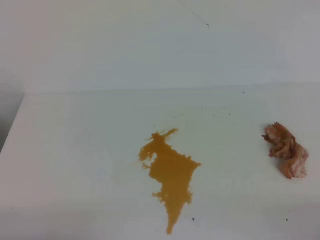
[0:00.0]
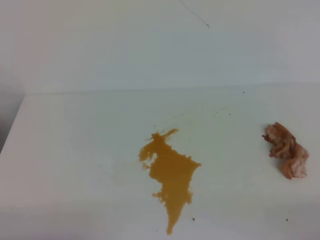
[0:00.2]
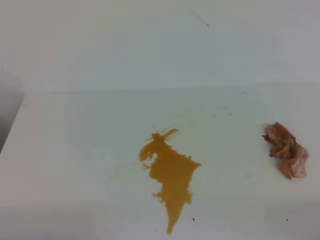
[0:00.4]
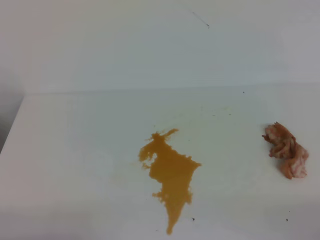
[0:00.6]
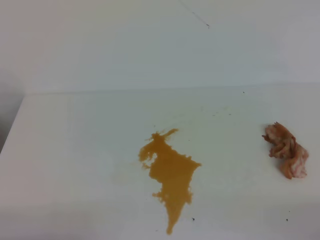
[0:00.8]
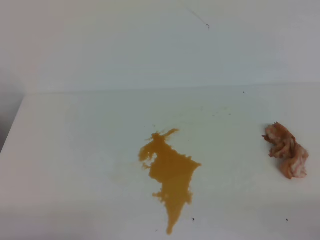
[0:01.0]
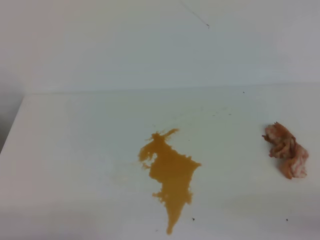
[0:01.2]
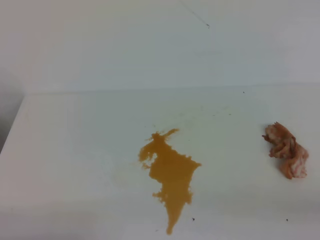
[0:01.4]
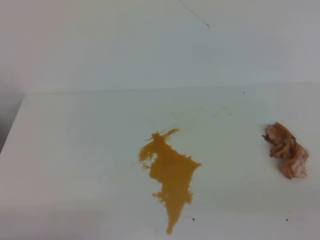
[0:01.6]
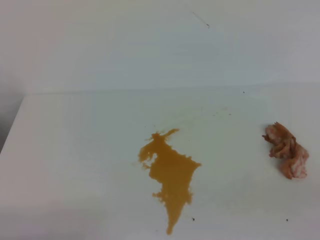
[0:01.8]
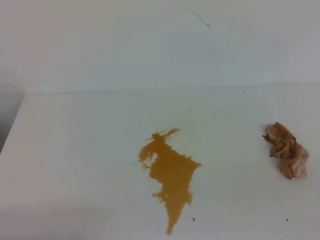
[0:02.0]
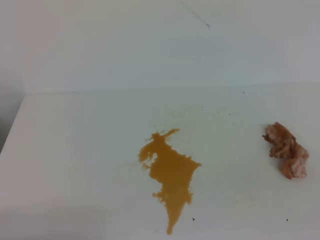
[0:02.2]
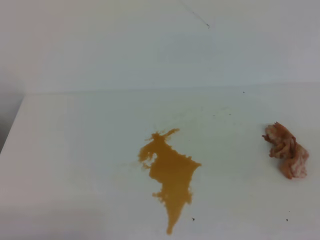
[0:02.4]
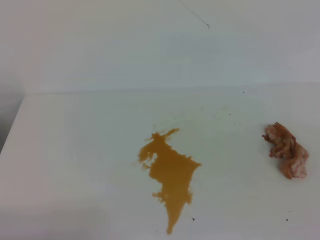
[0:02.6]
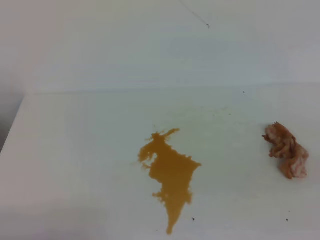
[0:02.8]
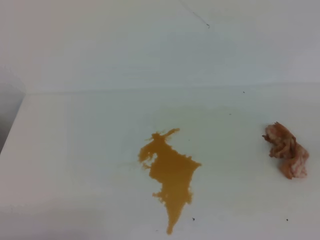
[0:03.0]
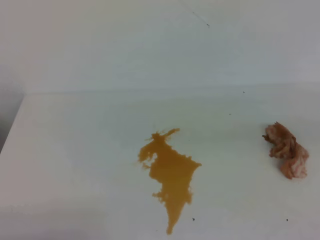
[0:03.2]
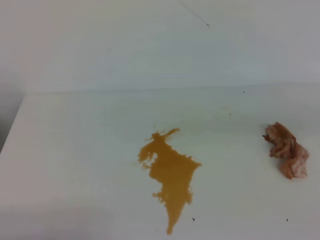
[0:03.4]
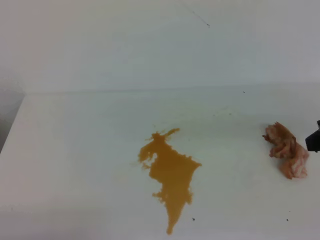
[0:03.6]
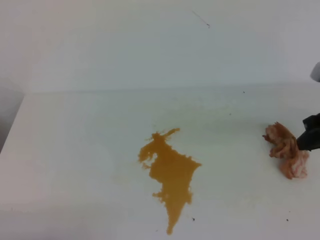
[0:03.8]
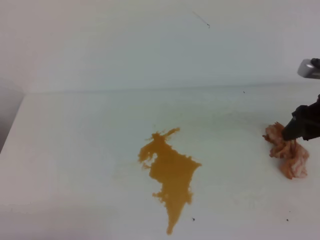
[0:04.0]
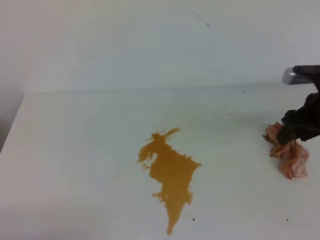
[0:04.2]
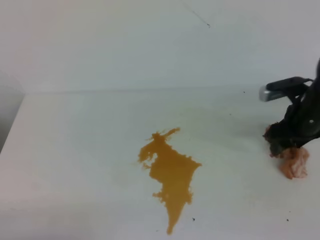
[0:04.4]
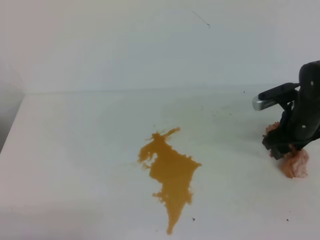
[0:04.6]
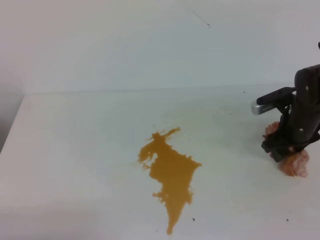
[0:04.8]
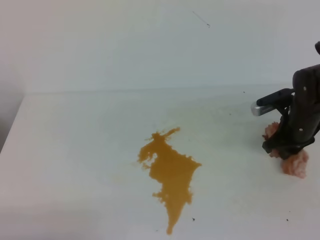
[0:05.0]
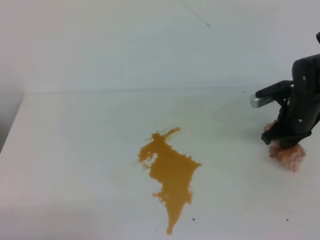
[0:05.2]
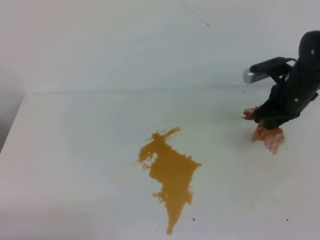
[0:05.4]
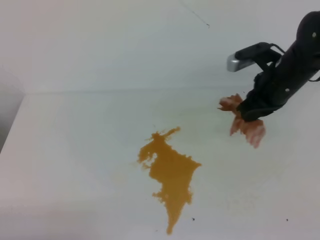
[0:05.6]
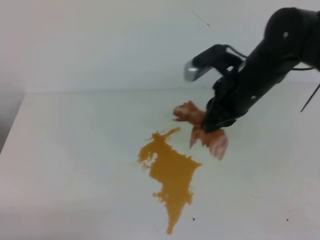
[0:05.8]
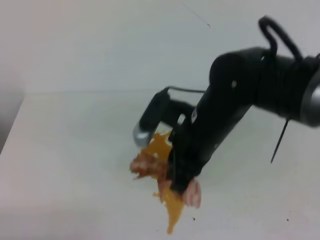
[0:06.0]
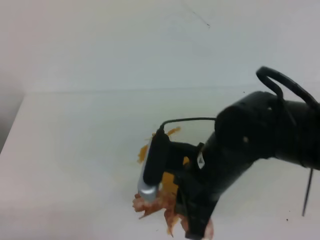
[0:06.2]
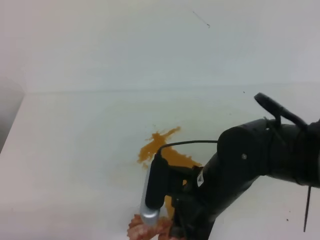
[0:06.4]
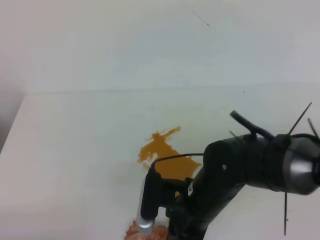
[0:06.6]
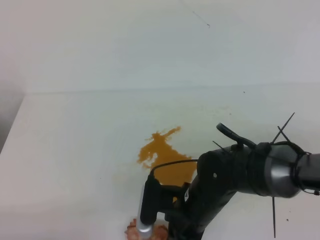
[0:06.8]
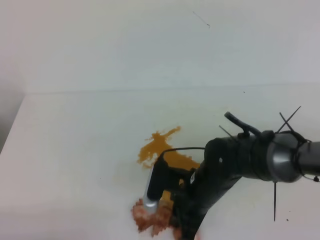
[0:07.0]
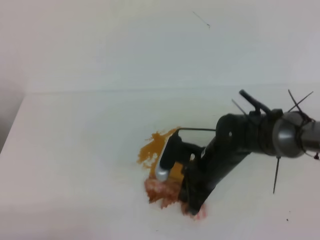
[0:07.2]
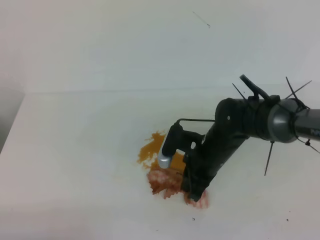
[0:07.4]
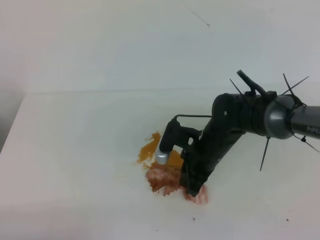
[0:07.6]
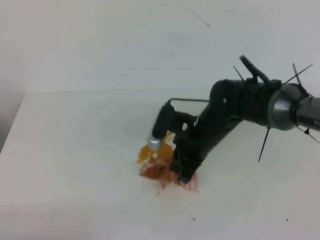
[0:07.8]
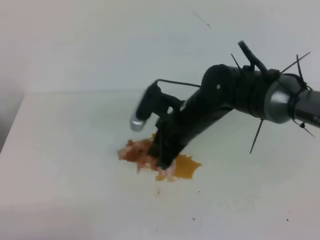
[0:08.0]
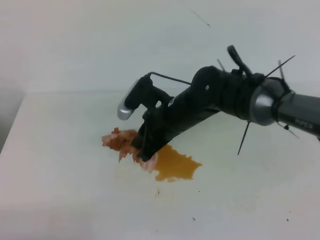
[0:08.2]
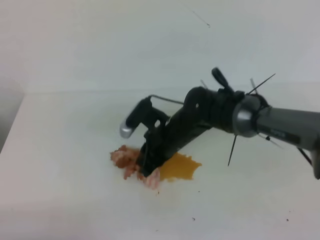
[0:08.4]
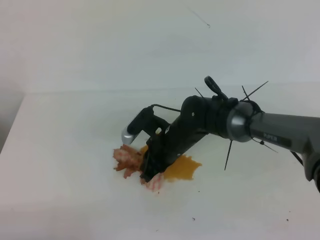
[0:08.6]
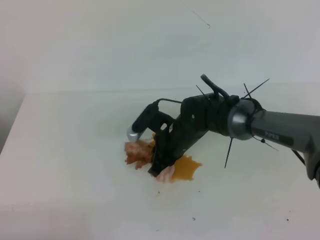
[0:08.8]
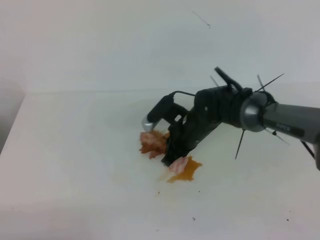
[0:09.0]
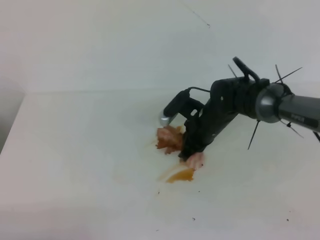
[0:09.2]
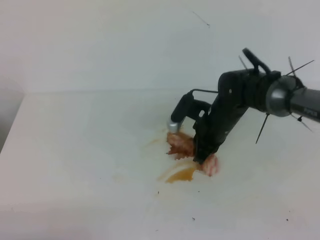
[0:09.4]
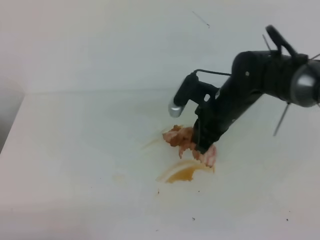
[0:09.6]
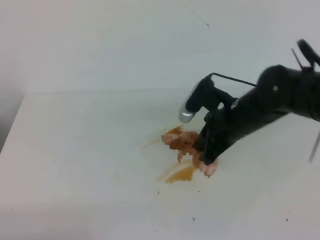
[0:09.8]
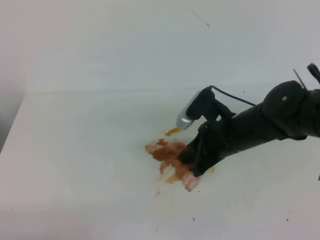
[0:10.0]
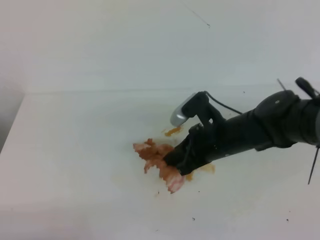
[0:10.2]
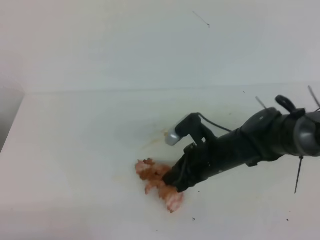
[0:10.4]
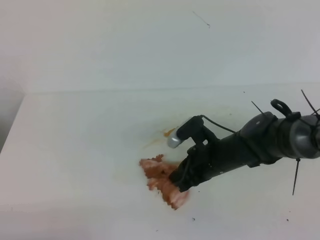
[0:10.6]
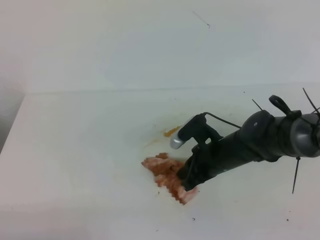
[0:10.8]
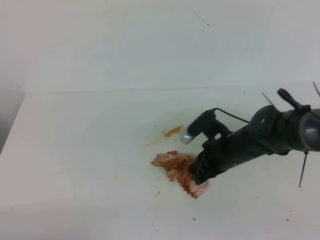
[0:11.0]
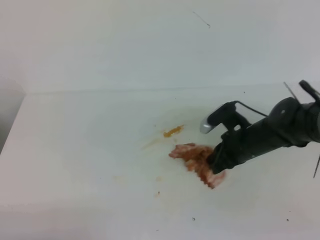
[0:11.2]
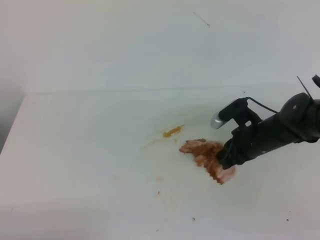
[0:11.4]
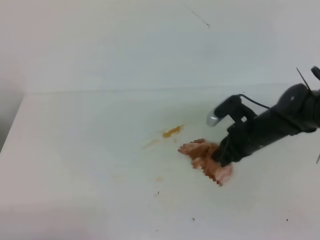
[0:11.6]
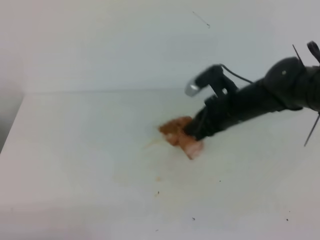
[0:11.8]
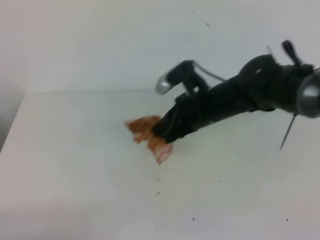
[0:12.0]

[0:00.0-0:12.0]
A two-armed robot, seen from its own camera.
0:03.0 to 0:04.4: The right gripper travels forward and downward by some 30 cm, and opens its fingers.
0:04.4 to 0:06.0: The right gripper travels to the left and backward by some 20 cm, and closes up.
0:06.0 to 0:07.6: The right gripper travels downward by roughly 10 cm.
0:07.6 to 0:09.0: The right gripper goes roughly 5 cm forward.
0:09.0 to 0:10.4: The right gripper goes approximately 5 cm backward.
0:10.4 to 0:12.0: The right gripper travels to the right and back again, approximately 10 cm each way.

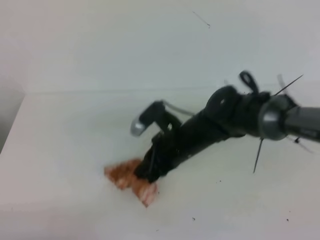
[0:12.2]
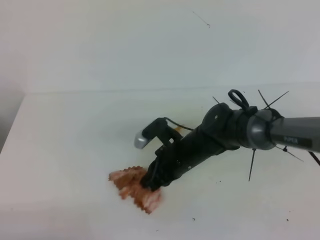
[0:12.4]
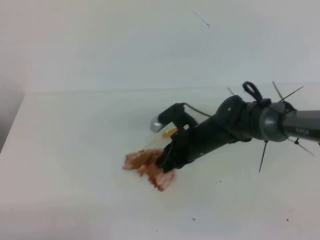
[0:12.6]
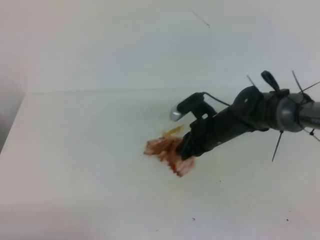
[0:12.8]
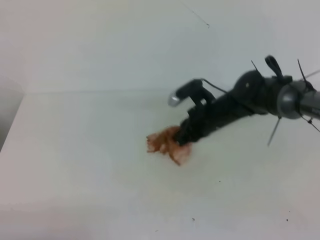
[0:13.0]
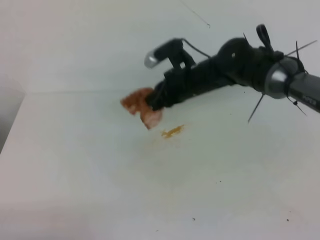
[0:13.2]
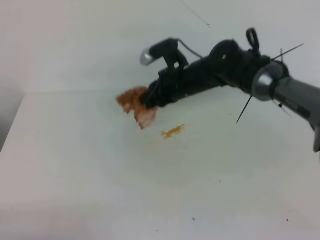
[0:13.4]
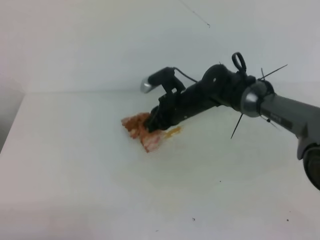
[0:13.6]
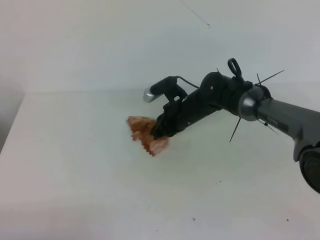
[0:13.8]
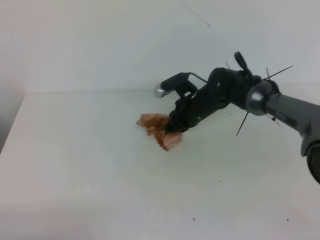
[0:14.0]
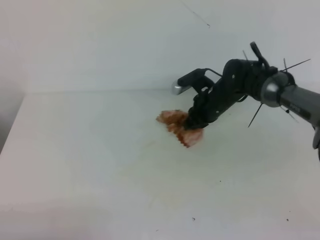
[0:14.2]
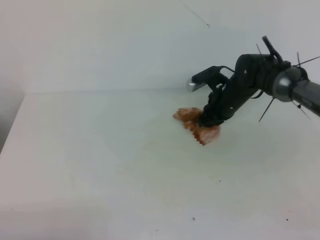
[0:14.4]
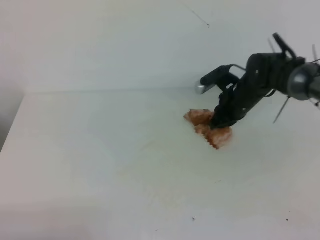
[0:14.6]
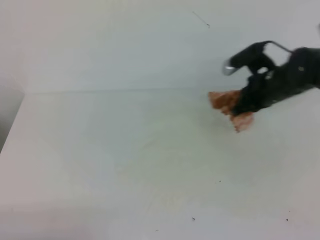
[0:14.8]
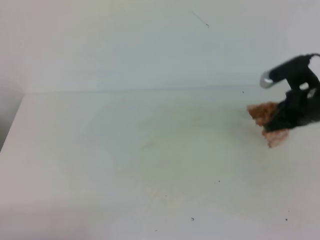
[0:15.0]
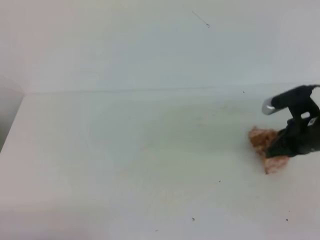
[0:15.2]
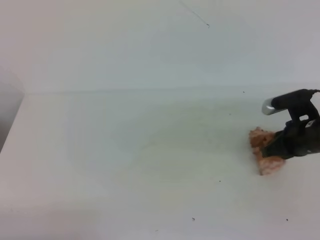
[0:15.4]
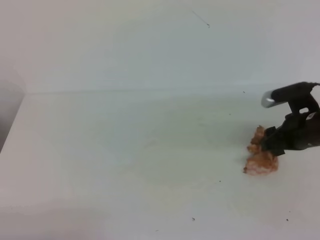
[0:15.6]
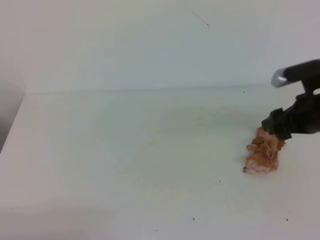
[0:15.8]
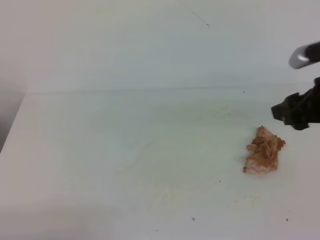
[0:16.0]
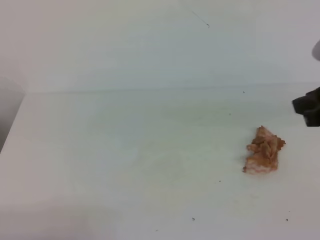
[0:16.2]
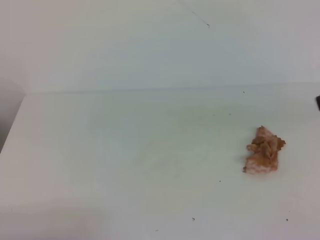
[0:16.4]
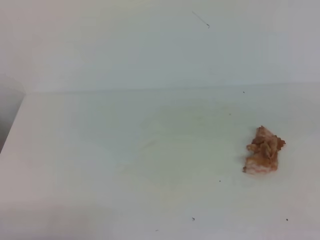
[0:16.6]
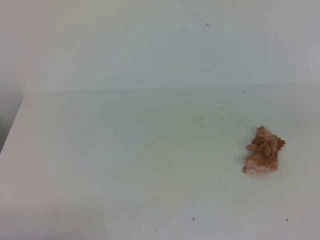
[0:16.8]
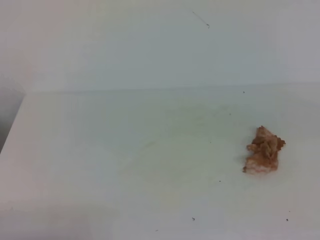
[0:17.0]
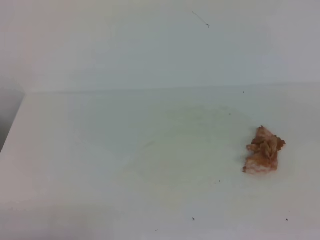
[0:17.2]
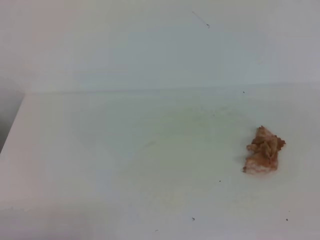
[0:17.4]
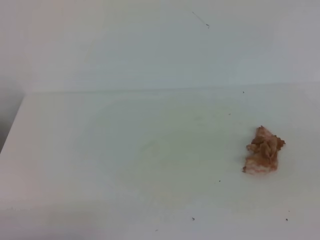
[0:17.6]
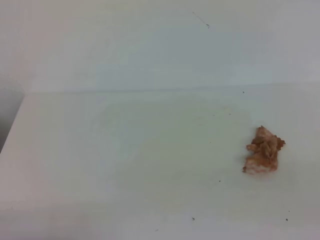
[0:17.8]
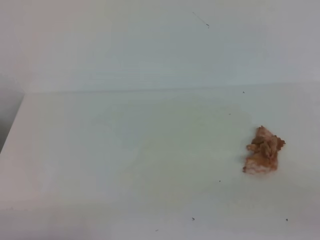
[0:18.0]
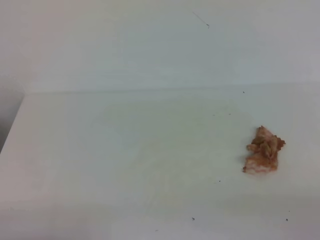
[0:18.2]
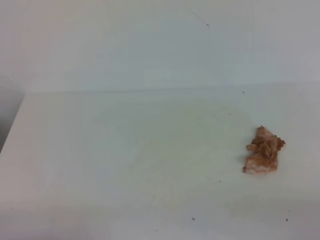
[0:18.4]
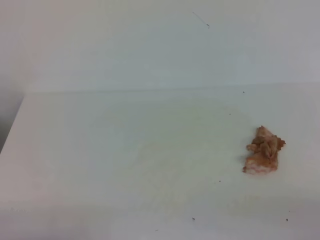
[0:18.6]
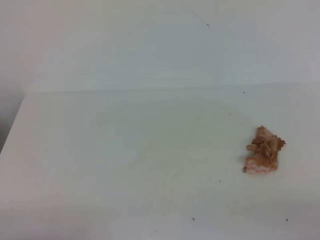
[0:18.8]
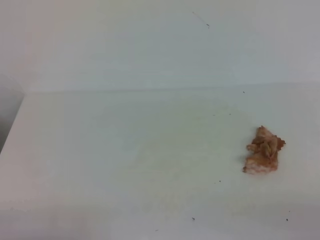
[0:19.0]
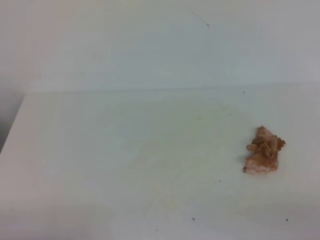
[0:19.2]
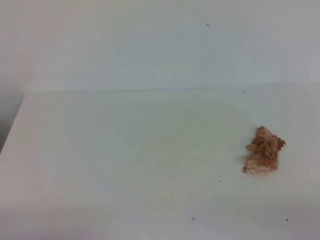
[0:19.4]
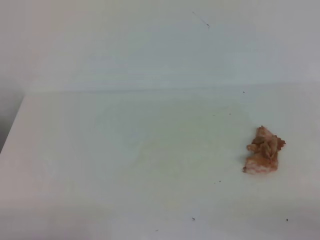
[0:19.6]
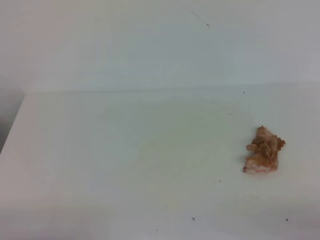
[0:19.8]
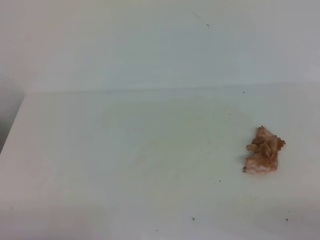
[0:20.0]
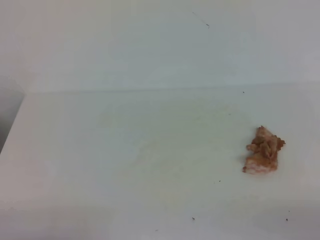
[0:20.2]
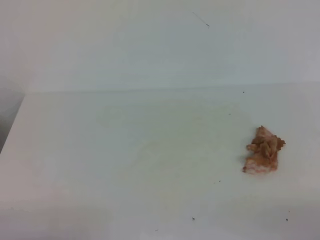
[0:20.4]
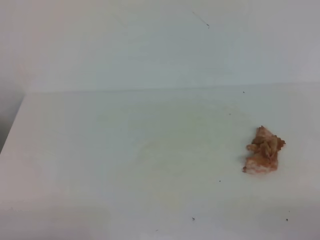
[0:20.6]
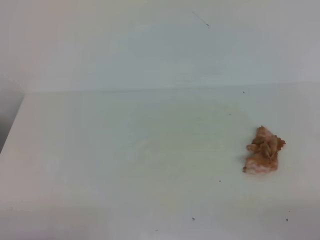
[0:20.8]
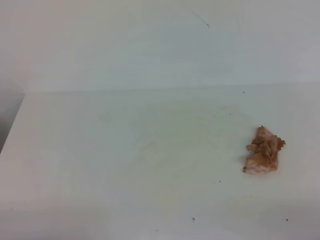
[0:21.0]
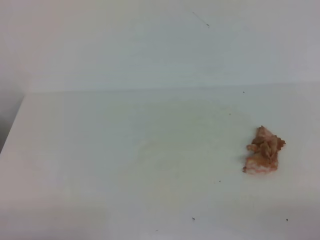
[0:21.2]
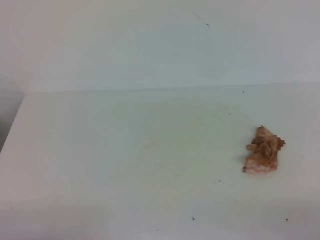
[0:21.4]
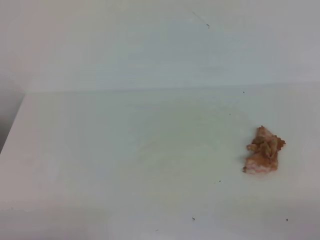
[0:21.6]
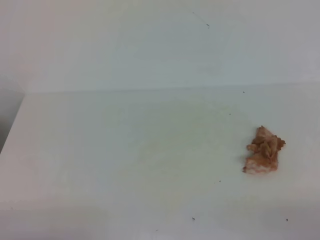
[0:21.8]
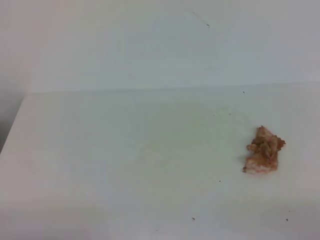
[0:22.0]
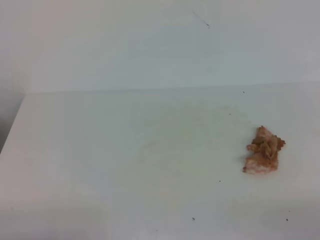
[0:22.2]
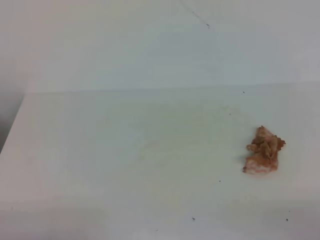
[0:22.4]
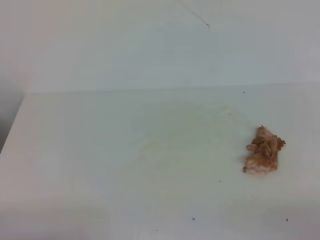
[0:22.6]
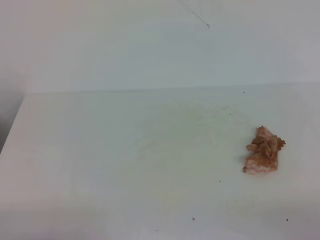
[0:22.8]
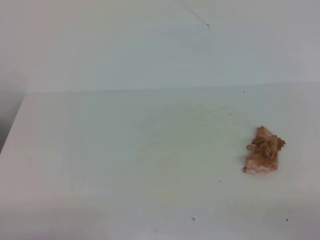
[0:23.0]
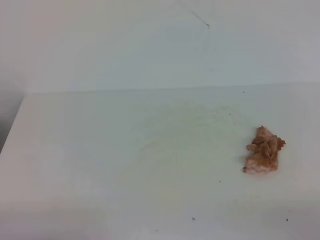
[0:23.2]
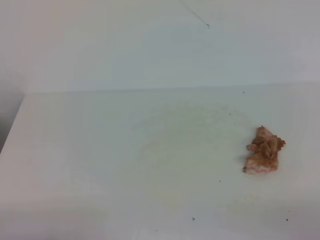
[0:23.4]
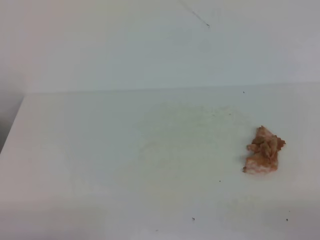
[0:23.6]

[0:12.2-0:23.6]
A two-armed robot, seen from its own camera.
0:12.2 to 0:13.6: The right gripper goes about 10 cm forward.
0:13.6 to 0:15.0: The right gripper heads to the right, covering roughly 20 cm.
0:15.0 to 0:16.4: The right gripper travels backward and upward by roughly 25 cm, and opens, then closes again.
0:16.4 to 0:17.8: The right gripper heads backward, covering roughly 20 cm.
0:20.8 to 0:23.6: The two grippers keep their place.
